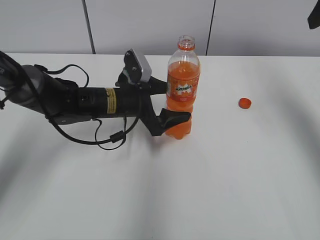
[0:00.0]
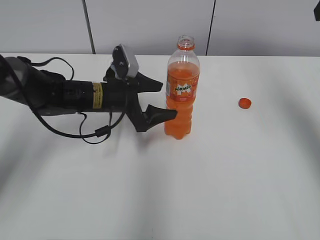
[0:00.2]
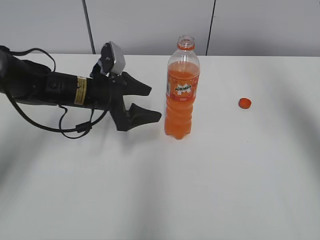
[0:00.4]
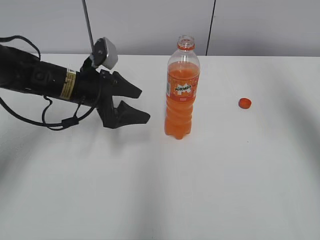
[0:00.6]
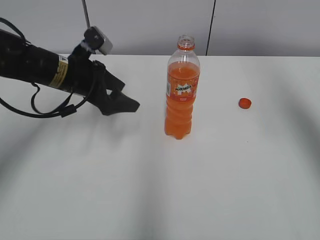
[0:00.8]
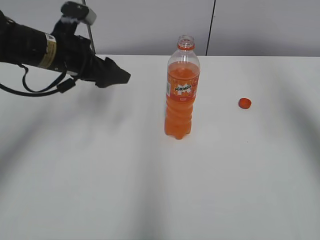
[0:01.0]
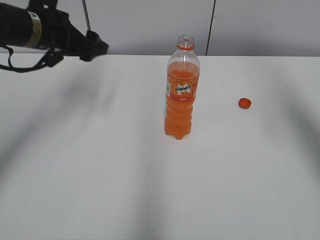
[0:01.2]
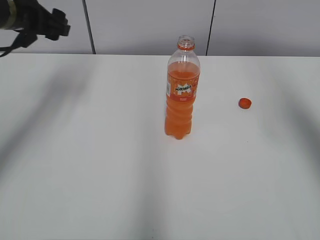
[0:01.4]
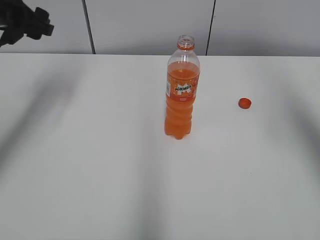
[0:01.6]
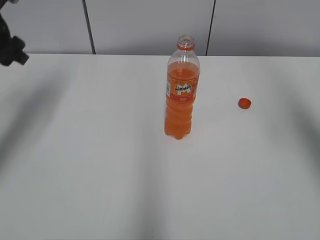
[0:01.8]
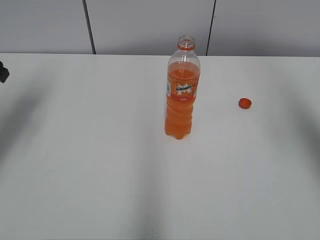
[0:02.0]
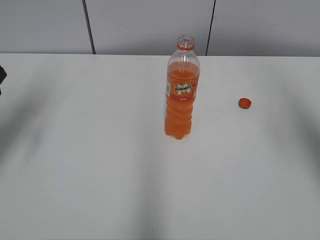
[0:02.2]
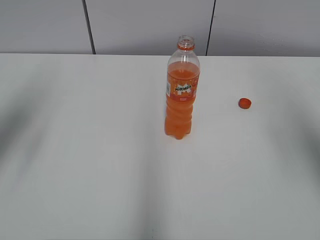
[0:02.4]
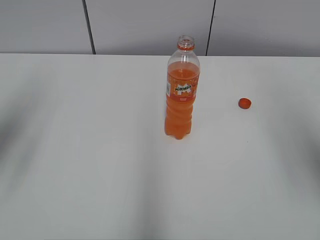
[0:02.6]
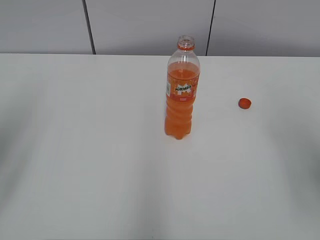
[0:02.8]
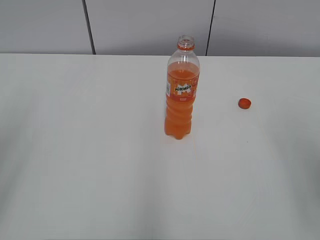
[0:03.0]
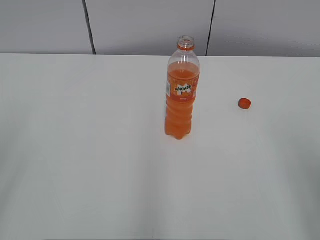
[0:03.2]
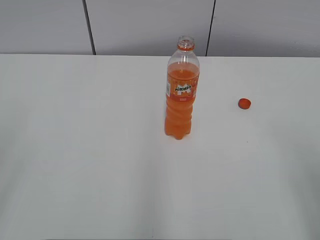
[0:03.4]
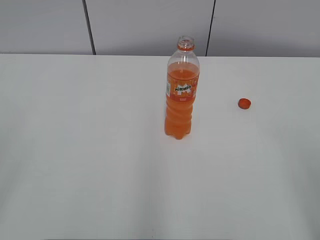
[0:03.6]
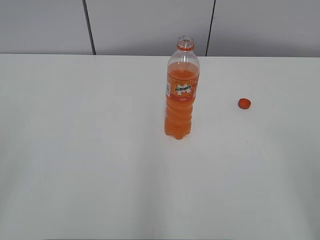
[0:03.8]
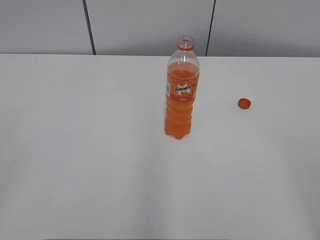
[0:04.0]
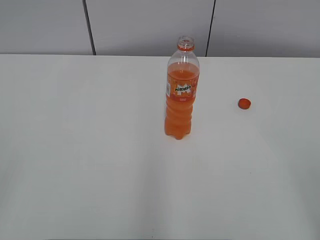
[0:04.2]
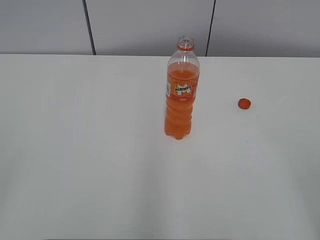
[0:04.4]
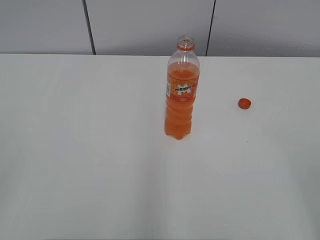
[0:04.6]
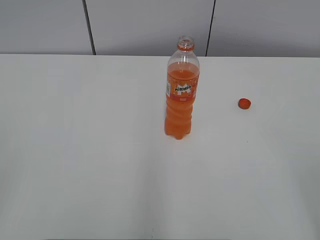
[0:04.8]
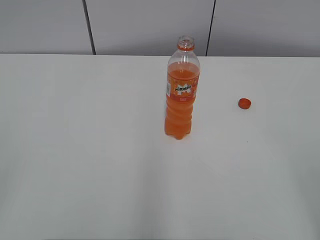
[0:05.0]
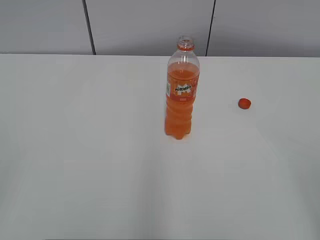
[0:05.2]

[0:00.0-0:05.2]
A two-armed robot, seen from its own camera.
0:00.0 to 0:01.8: The left gripper travels to the left and upward by about 25 cm, and closes up, while the right gripper is displaced backward and upward by about 10 cm.
0:01.8 to 0:03.4: The right gripper travels downward and backward by approximately 25 cm. The left gripper is displaced backward by about 30 cm.

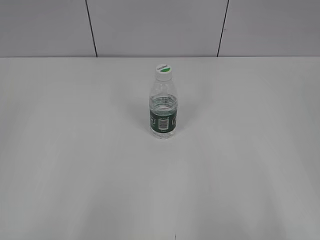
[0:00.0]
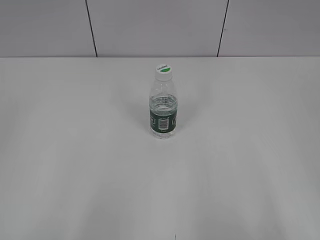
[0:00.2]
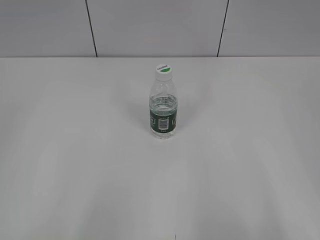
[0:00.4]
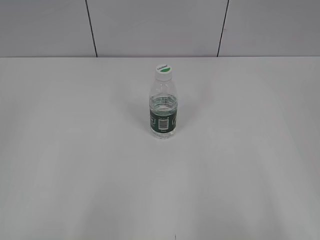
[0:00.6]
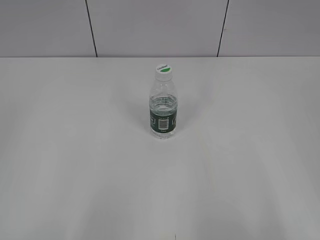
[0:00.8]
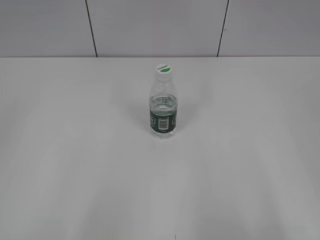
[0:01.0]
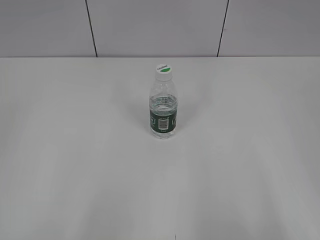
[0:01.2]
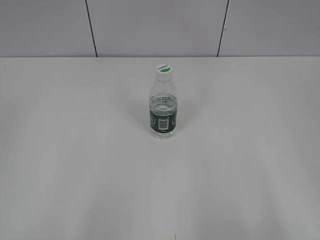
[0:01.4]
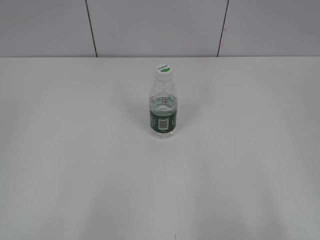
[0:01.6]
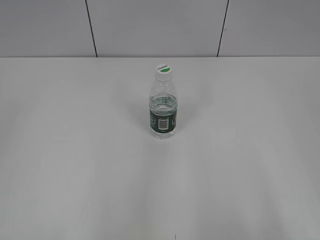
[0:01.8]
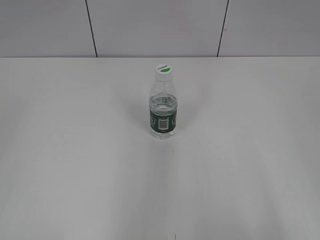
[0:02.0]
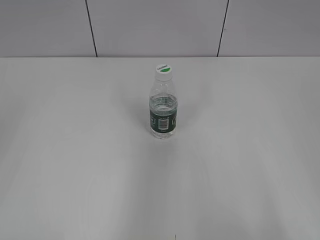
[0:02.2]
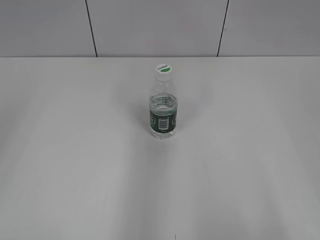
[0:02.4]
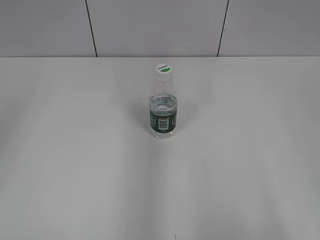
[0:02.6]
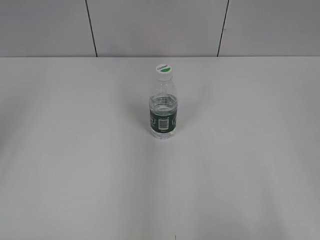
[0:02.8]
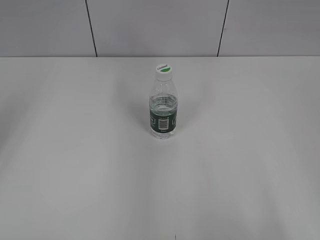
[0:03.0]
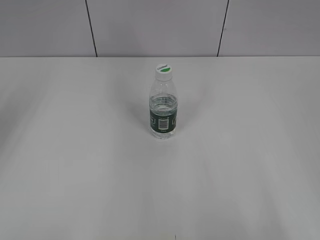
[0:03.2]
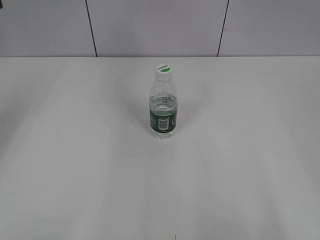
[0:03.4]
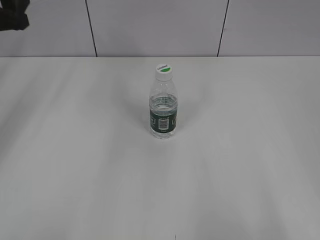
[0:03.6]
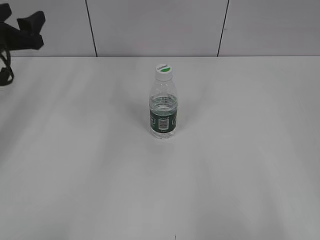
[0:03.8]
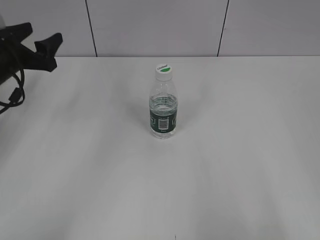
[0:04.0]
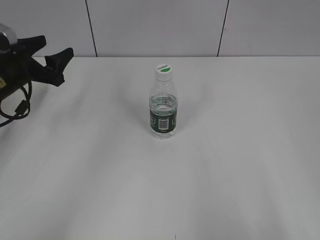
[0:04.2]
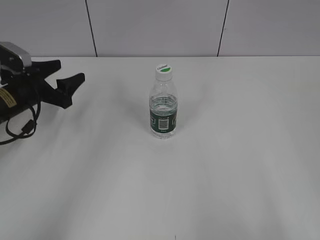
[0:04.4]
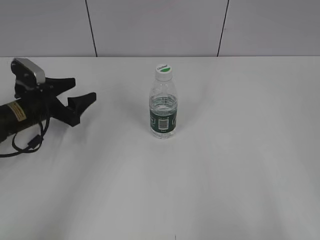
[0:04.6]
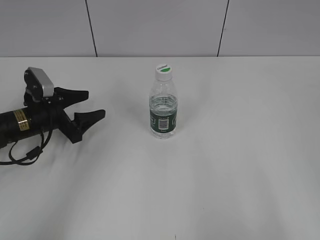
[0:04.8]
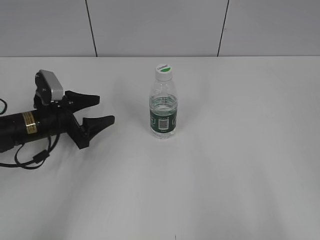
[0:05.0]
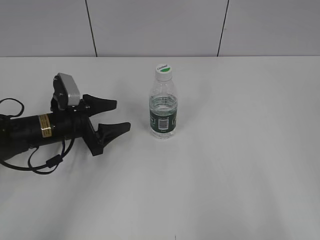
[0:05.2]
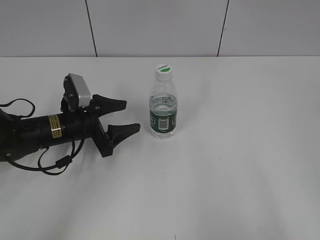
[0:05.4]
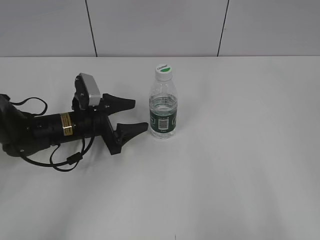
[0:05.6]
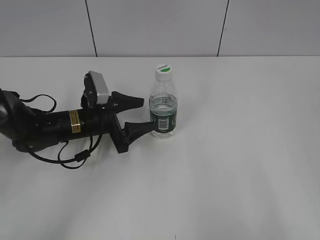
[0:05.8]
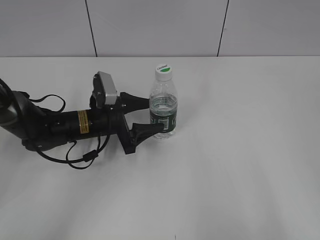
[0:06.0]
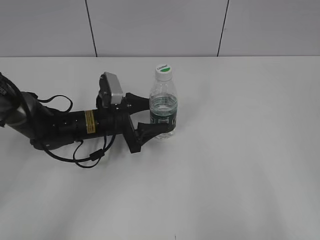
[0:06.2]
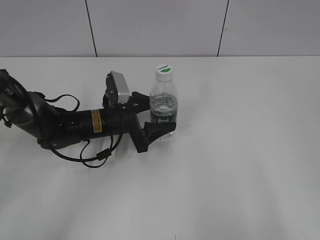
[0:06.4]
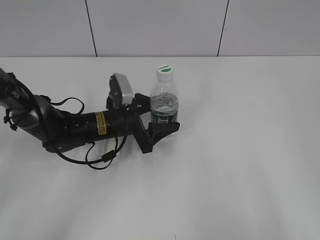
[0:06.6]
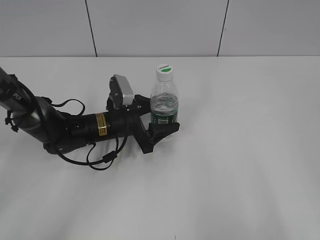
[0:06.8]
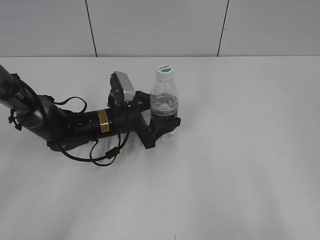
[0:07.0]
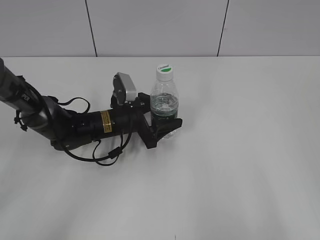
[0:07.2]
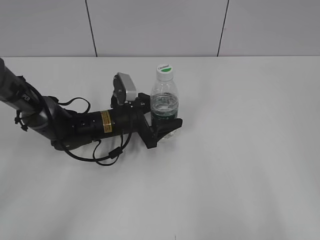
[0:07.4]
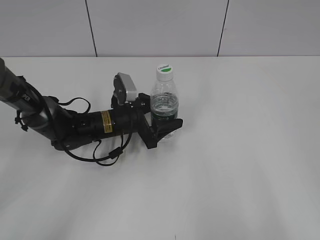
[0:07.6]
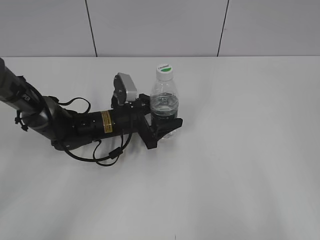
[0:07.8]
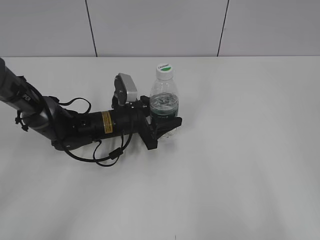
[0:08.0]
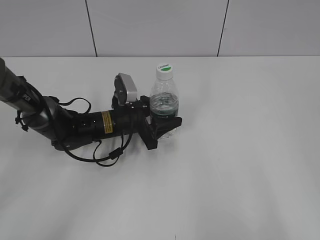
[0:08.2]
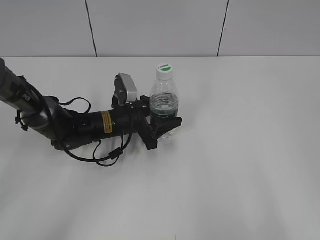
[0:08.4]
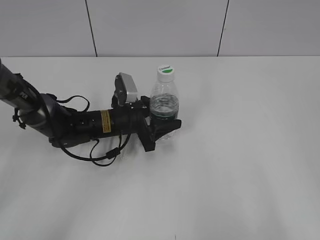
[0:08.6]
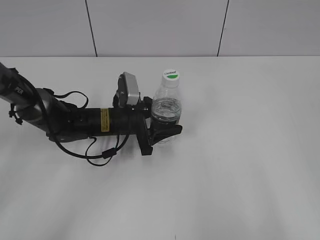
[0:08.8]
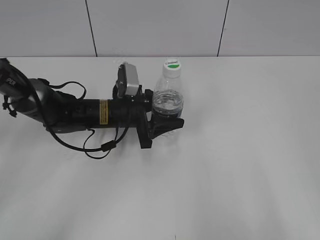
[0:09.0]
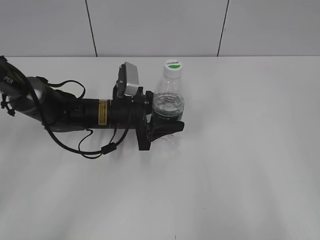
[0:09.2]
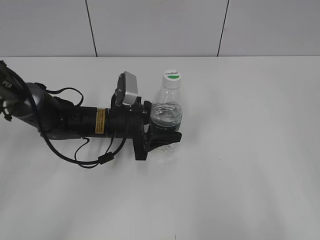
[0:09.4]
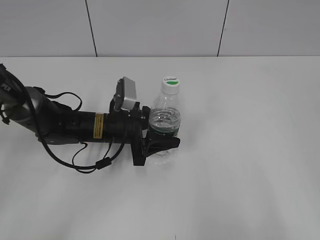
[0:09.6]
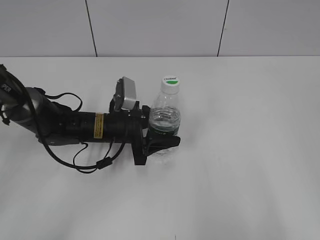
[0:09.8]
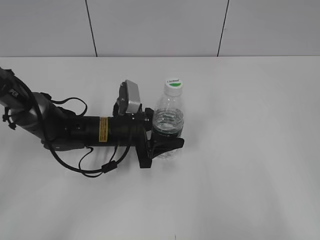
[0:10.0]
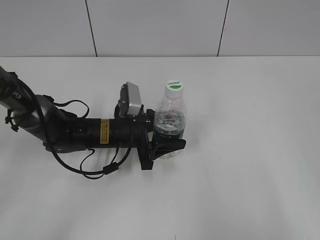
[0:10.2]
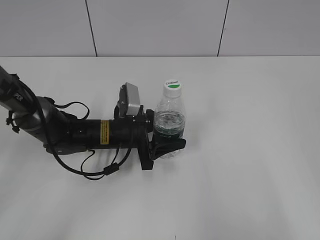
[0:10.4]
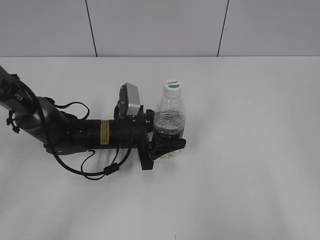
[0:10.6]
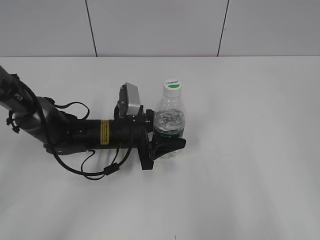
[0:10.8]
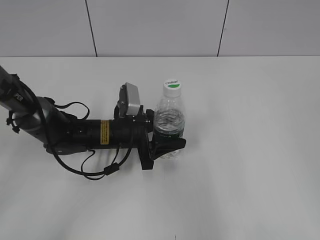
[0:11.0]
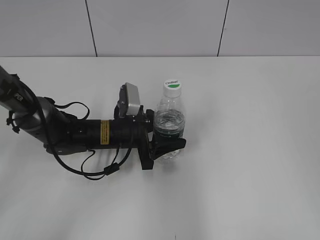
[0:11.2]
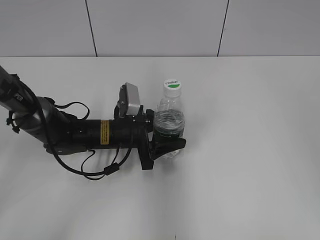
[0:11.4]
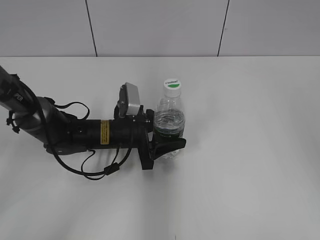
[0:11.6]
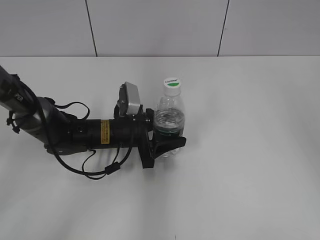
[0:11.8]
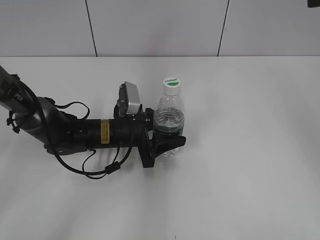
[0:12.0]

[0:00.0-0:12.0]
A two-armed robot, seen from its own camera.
Step, 0:00.0 to 0:08.2: Grasp the bottle and move it to the center of the table with the left gripper.
Step, 0:08.4 to 0:11.4: Lift the bottle and move it to the center of the table with the left gripper.
0:03.0 to 0:04.4: The left gripper moves downward and forward, roughly 25 cm.
0:04.4 to 0:06.0: The left gripper heads to the right, covering approximately 15 cm.
0:06.0 to 0:07.6: The grippers stay close to where they were, moving slightly.
0:07.6 to 0:09.0: The left gripper closes up.
0:09.0 to 0:10.4: There are only small adjustments of the grippers.
0:10.4 to 0:12.0: The right gripper moves forward, approximately 30 cm.

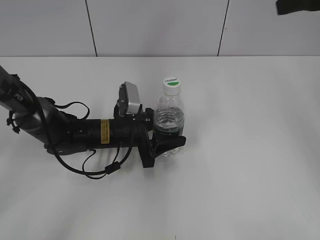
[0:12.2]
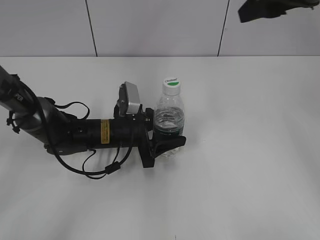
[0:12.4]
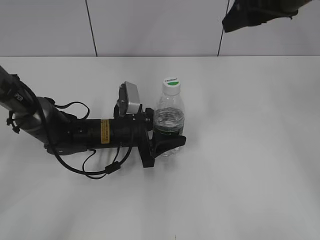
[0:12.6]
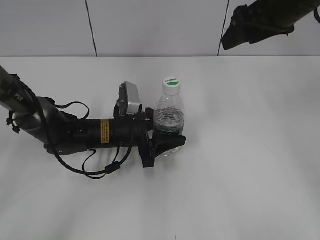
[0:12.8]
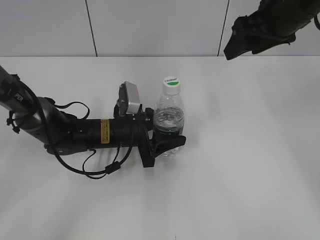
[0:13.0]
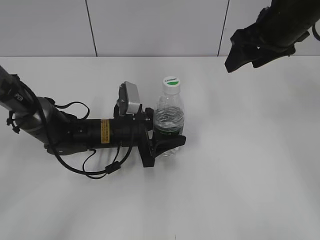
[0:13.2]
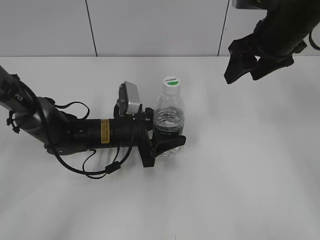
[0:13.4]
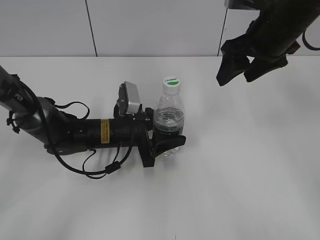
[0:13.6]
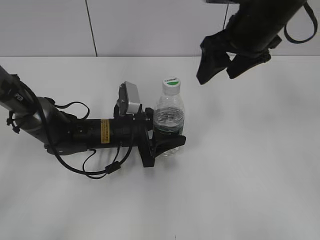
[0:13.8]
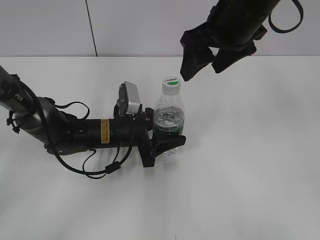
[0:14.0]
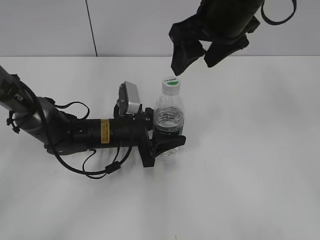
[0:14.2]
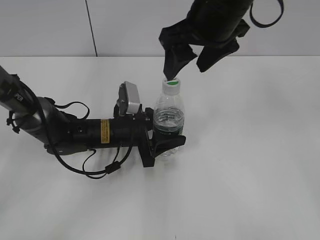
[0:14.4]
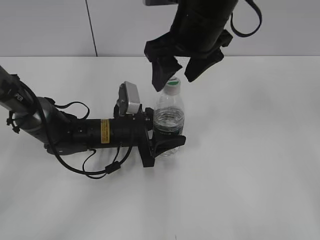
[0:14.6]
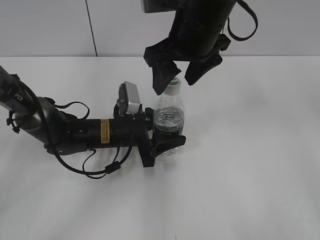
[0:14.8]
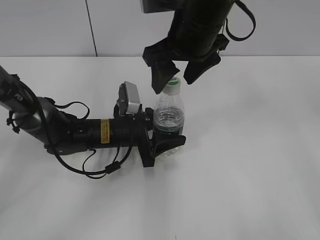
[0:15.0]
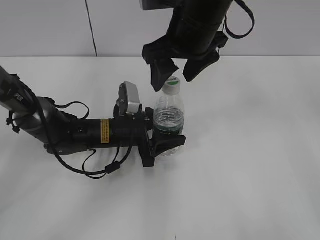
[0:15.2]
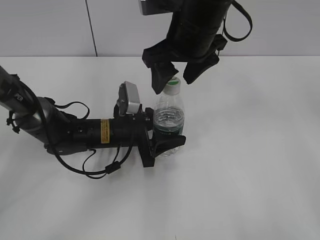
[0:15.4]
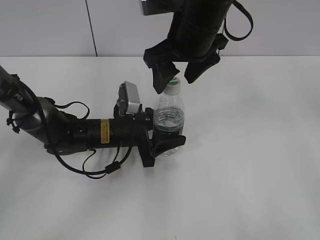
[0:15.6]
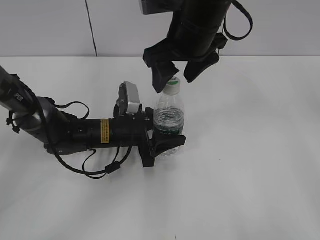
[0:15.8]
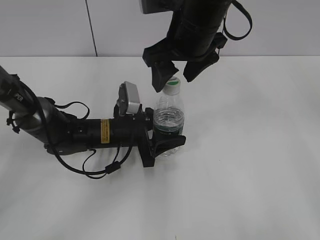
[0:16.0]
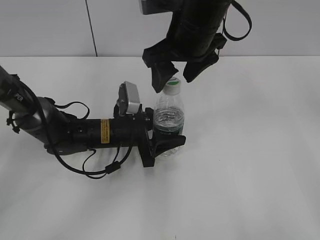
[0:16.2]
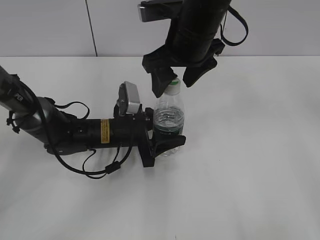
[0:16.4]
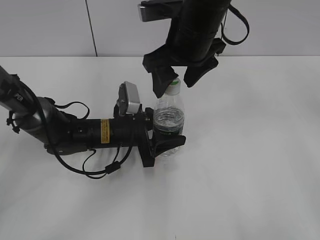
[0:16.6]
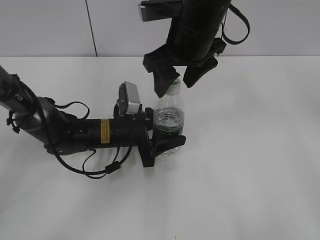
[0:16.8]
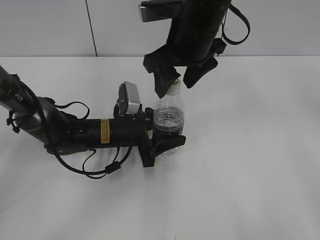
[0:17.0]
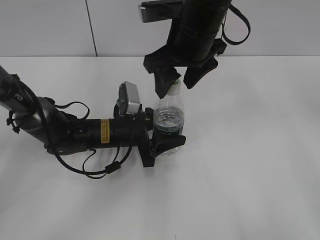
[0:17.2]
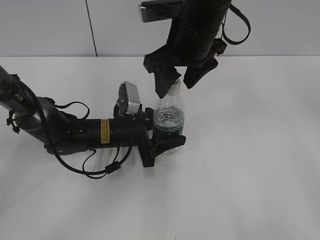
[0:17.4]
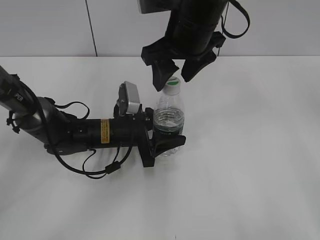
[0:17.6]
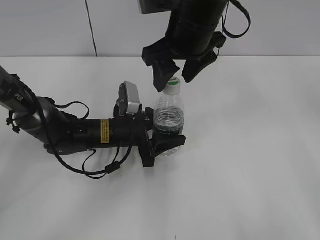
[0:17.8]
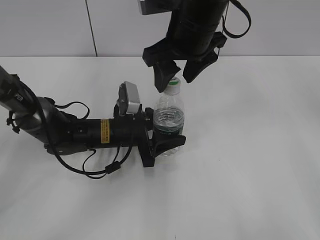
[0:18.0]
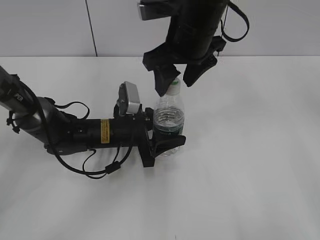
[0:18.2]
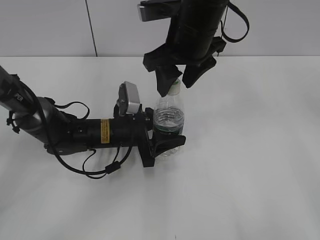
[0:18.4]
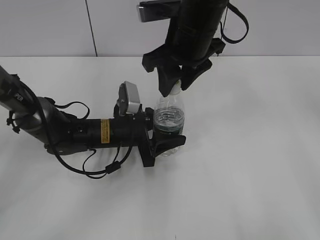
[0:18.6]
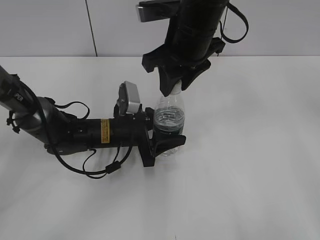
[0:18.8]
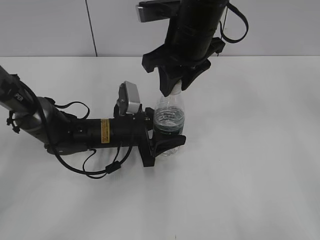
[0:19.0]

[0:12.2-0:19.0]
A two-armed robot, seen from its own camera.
0:12.2 to 0:13.6: The right gripper heads downward and to the left, covering about 10 cm.
0:13.6 to 0:15.0: The right gripper moves to the left, approximately 10 cm.
0:15.0 to 0:16.2: Neither gripper changes place.
0:16.2 to 0:17.6: Neither gripper changes place.
0:17.6 to 0:19.0: The right gripper closes up.
